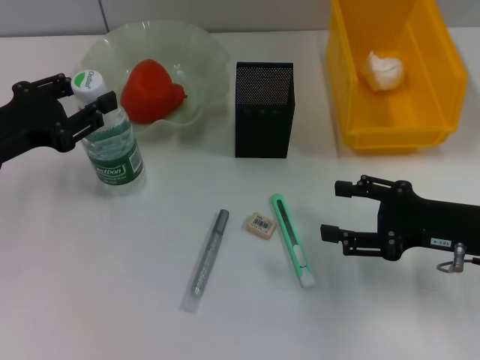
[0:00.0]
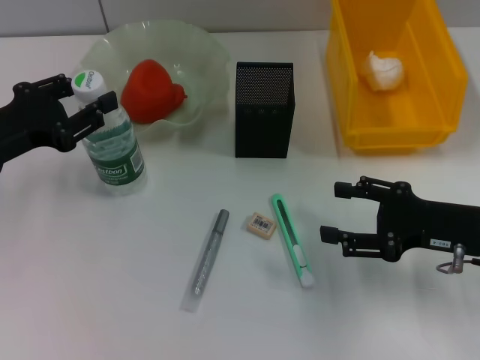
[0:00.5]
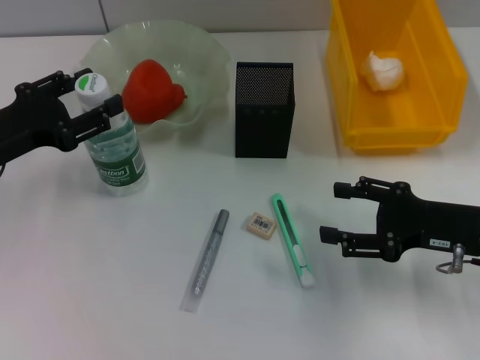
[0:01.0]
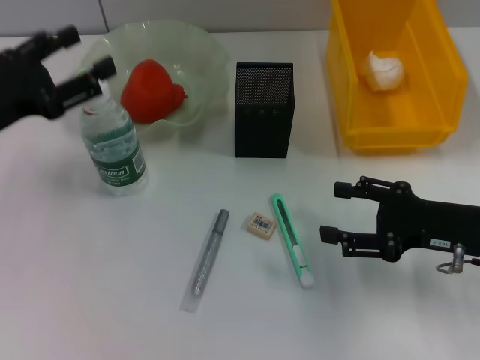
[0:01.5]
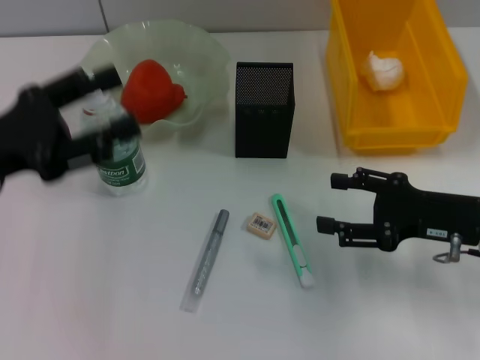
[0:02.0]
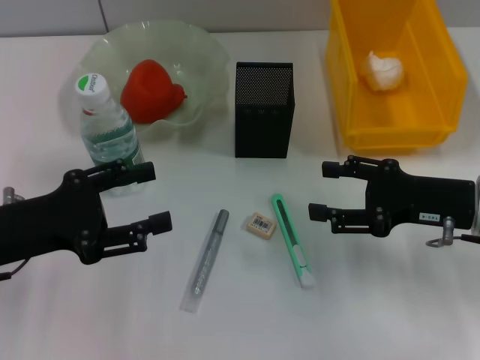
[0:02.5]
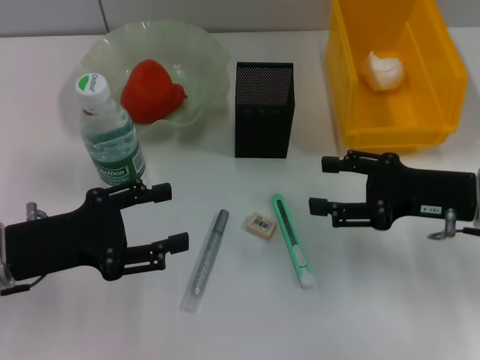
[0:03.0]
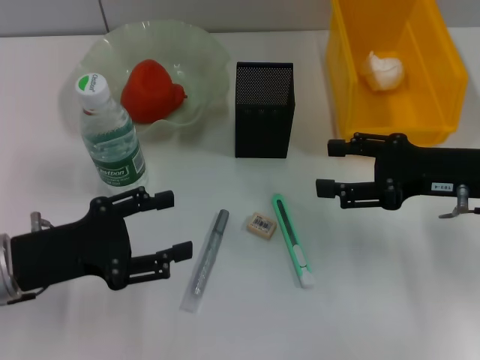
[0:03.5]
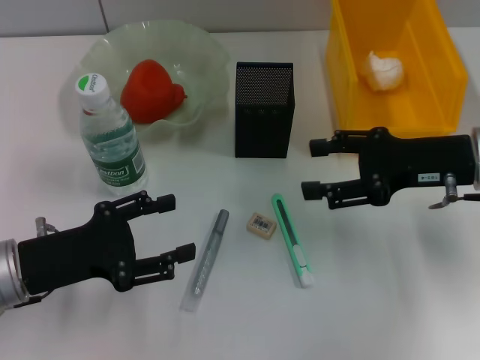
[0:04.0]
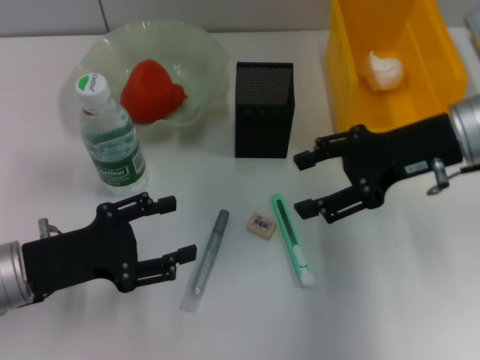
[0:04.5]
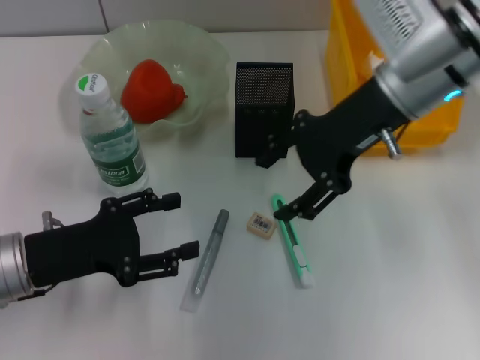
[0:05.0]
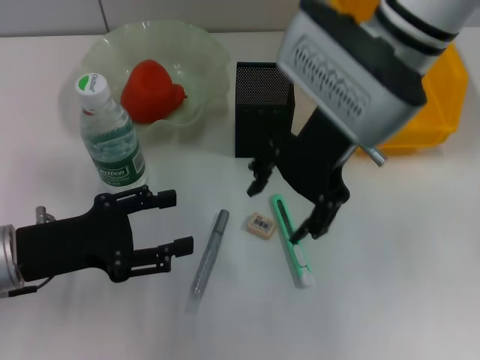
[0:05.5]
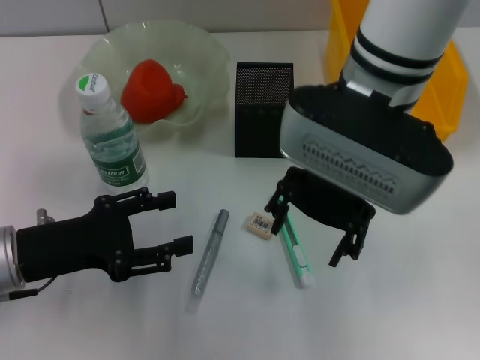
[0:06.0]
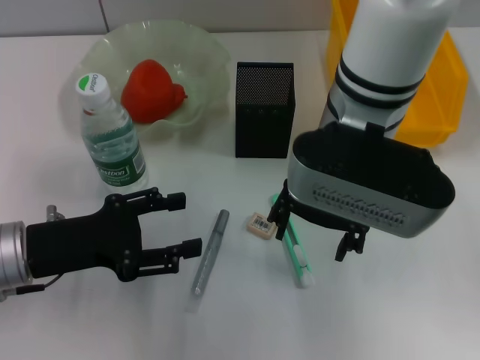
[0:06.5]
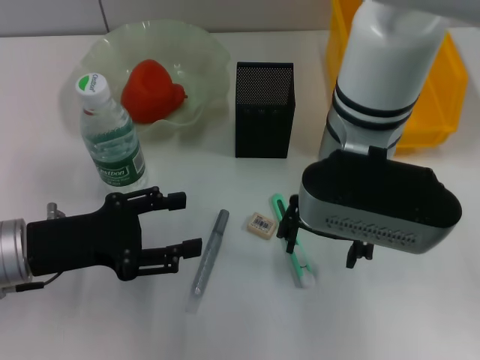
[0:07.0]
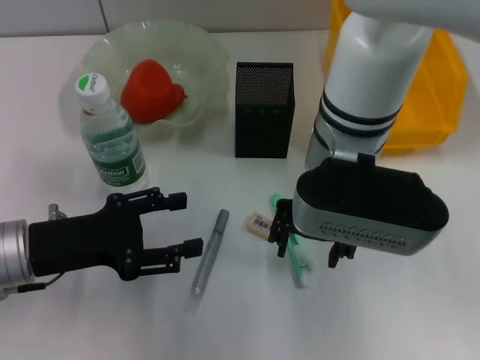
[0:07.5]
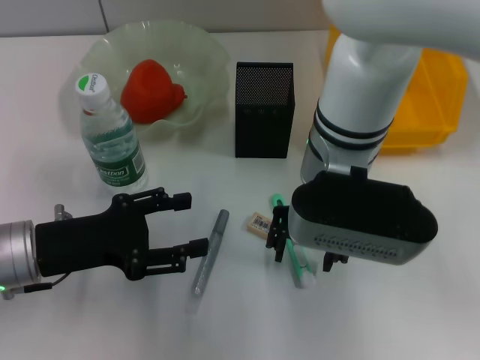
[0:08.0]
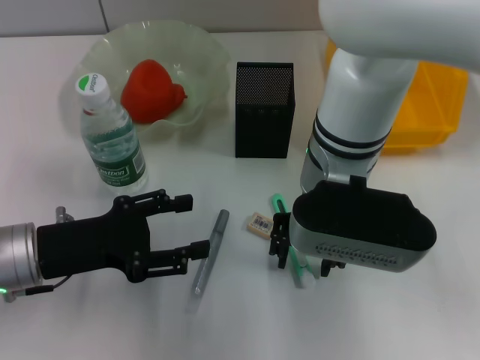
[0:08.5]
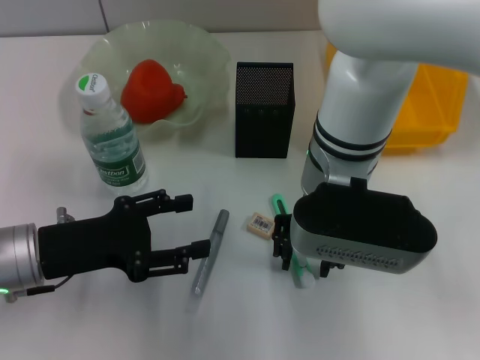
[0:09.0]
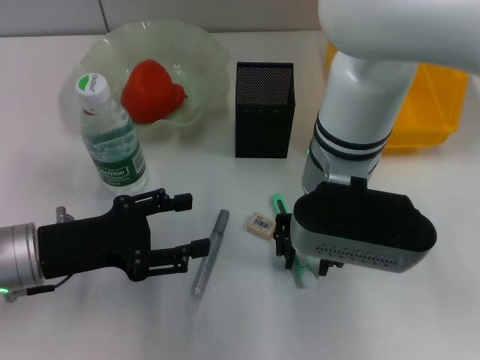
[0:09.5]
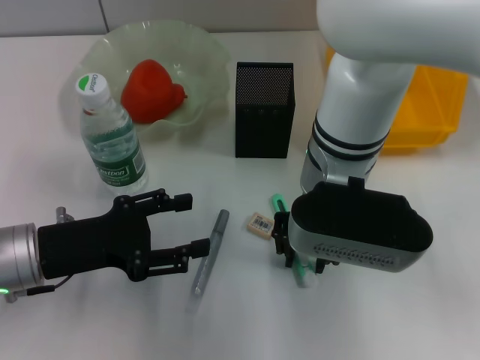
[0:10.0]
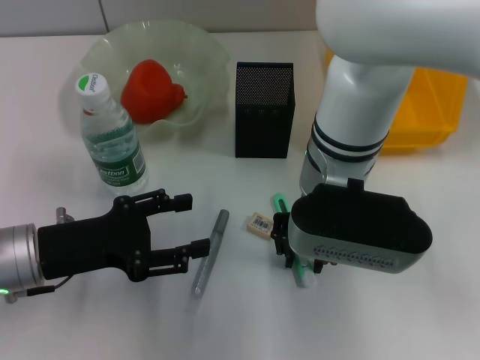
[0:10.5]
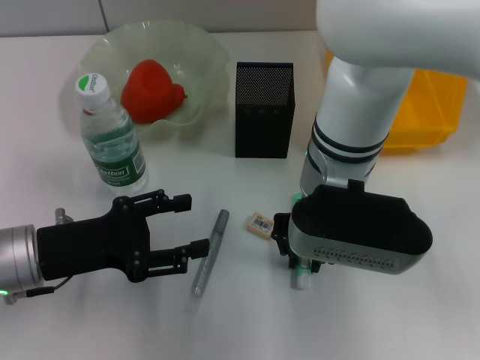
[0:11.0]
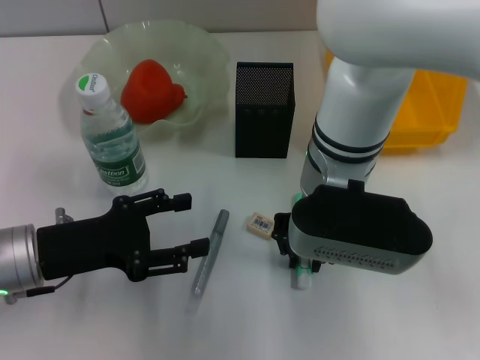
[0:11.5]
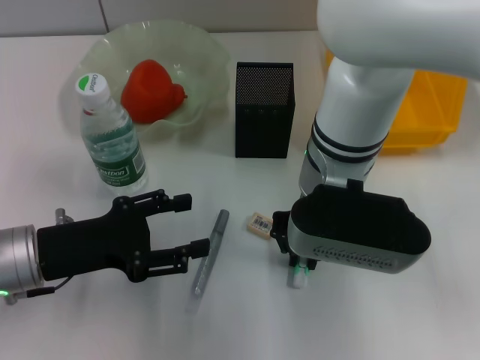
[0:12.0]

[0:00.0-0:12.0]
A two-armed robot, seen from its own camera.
0.0 to 2.0 s: The left gripper opens up.
2.0 to 4.0 s: The right gripper moves upward, roughly 5 cm, while the left gripper travels downward by about 10 cm.
4.0 to 6.0 s: The right gripper heads to the left and upward, covering roughly 20 cm.
6.0 to 8.0 s: The right gripper moves downward, about 5 cm.
8.0 to 10.0 s: Both grippers stay put.
10.0 to 12.0 s: Neither gripper changes place.

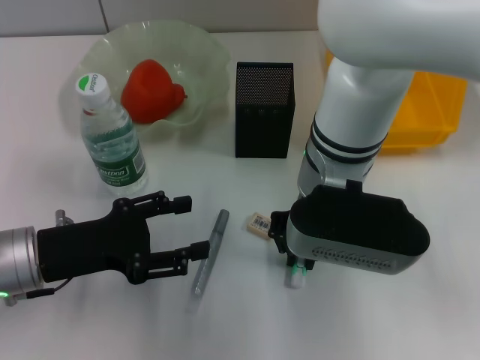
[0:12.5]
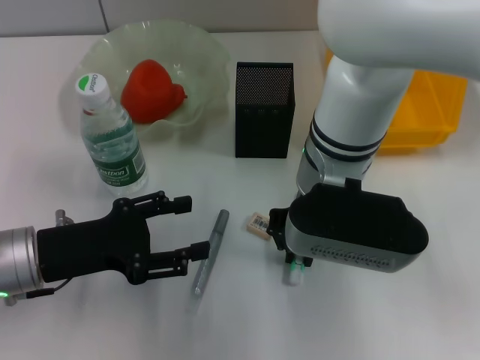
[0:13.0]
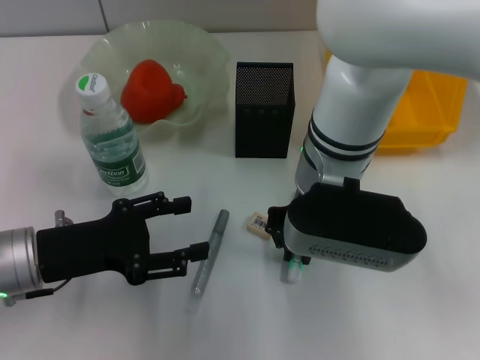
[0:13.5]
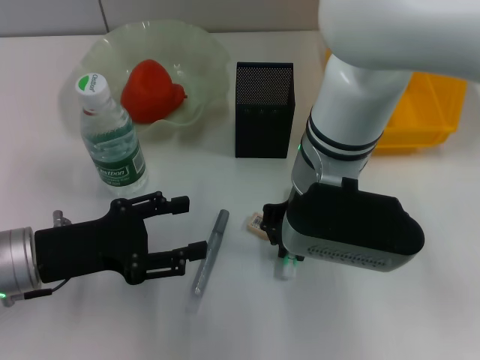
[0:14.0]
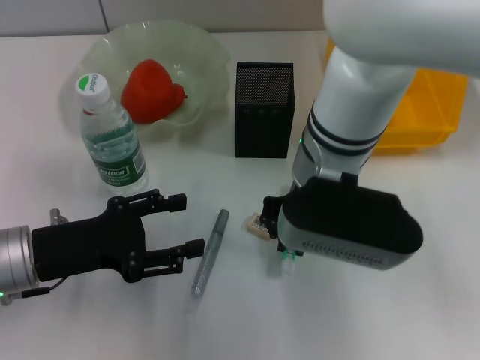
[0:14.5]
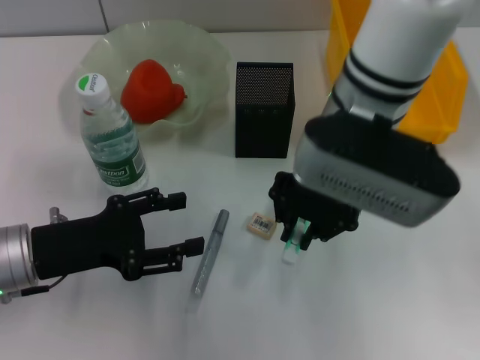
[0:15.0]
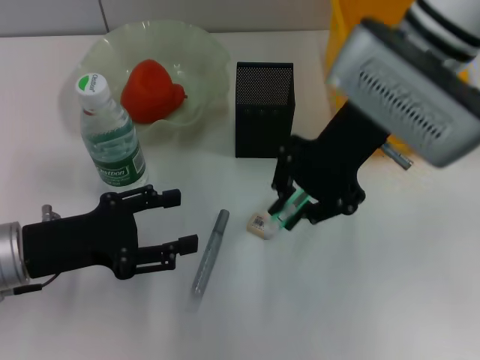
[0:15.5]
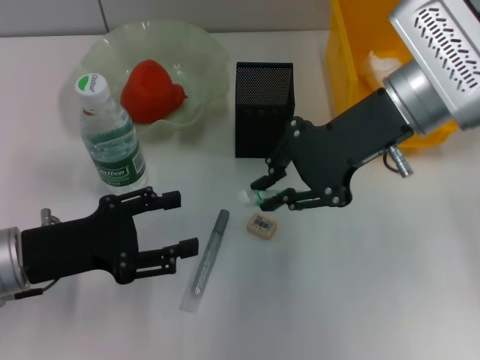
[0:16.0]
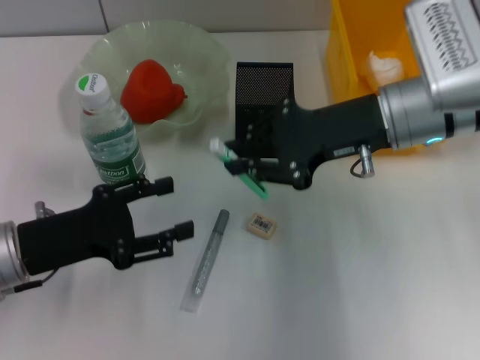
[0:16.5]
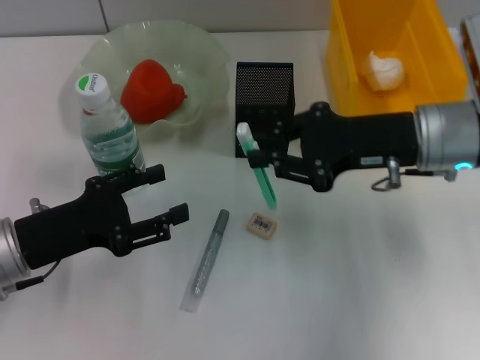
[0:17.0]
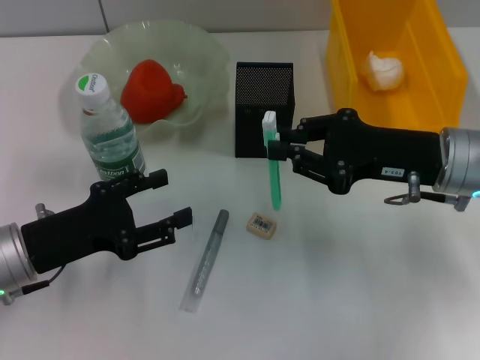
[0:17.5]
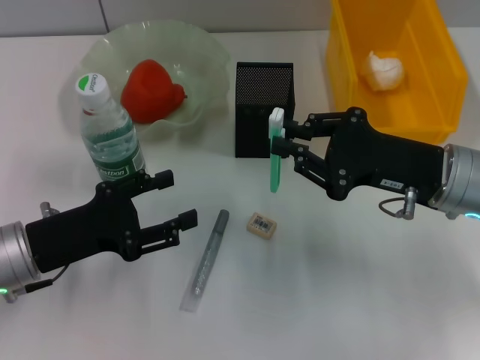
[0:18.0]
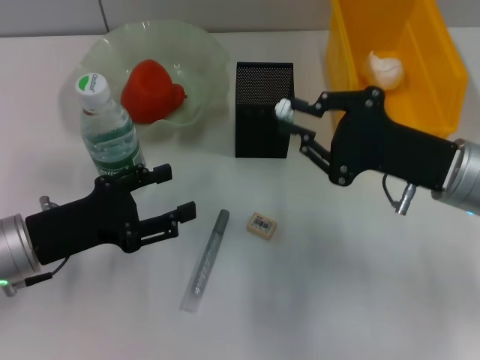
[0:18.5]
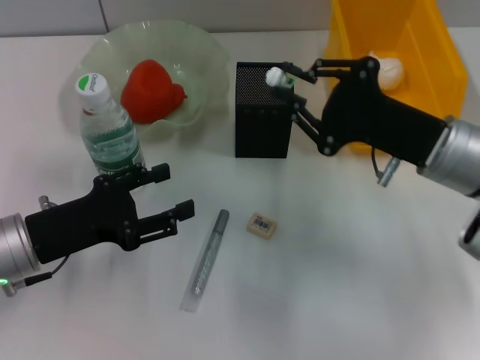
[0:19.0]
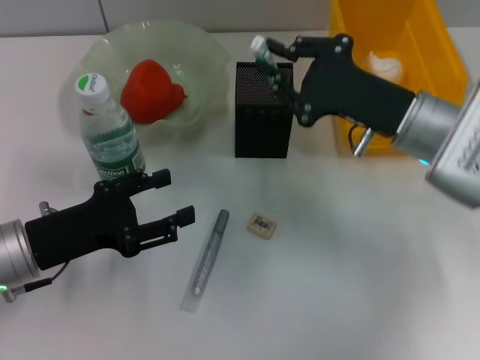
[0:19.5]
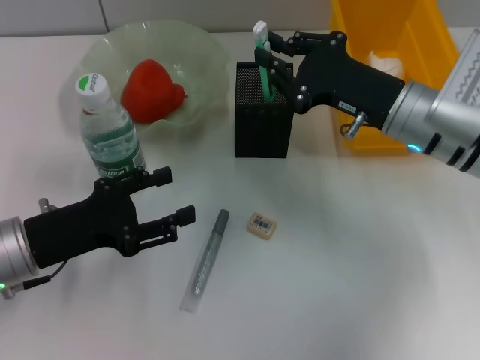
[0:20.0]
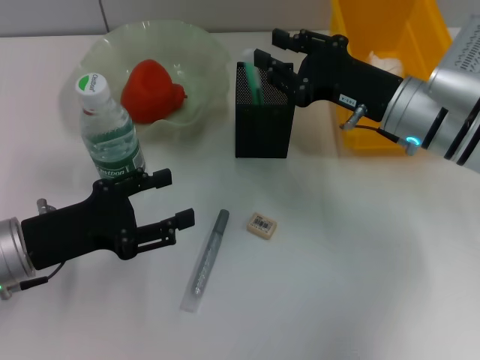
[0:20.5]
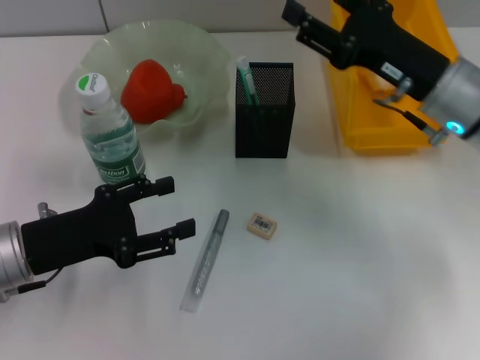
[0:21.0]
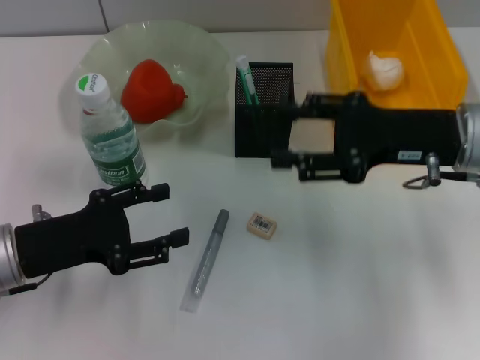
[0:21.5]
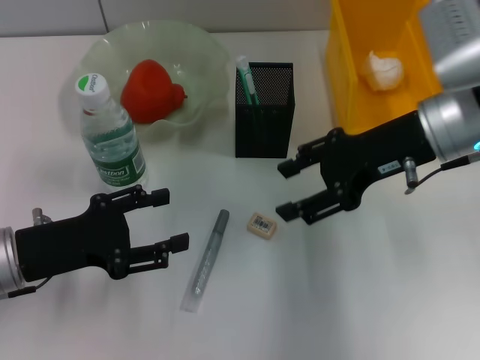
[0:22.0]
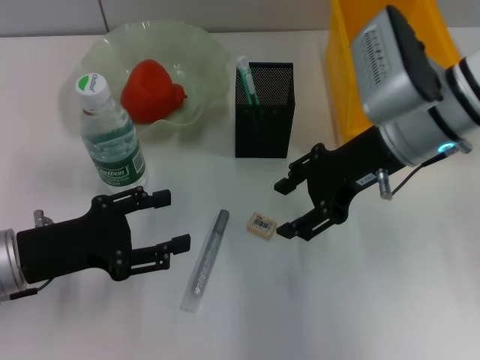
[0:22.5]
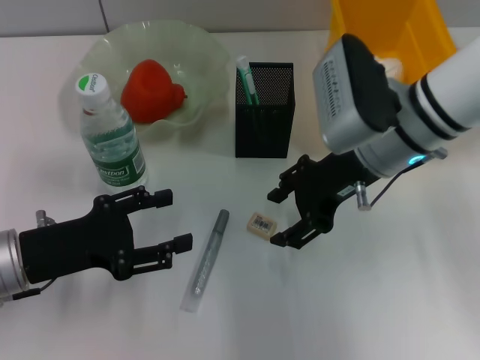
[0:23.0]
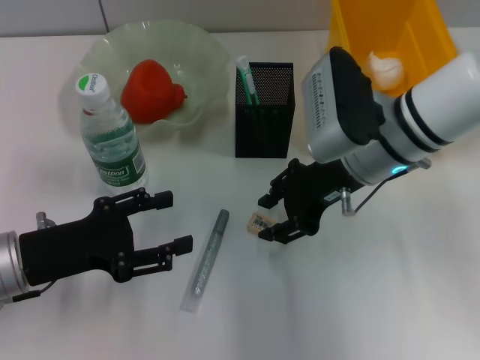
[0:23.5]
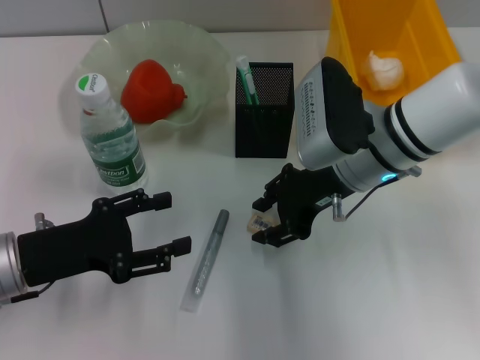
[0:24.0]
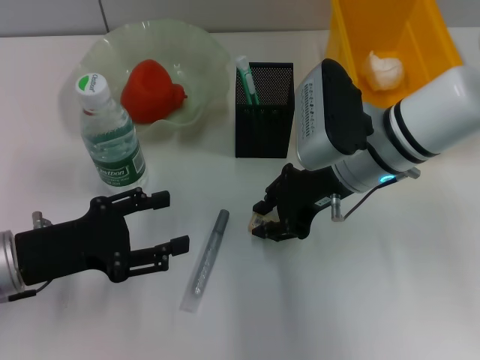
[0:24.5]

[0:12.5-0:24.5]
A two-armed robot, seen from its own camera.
Step, 12.5 to 20.5 s: Place the blue utility knife into the pen holder with the right hand.
12.5 to 14.5 s: Both grippers stay about where they are.
14.5 to 16.5 s: The right gripper shifts some 10 cm to the right.
16.5 to 18.5 s: The right gripper is displaced backward, downward and to the right by approximately 10 cm.
18.5 to 20.5 s: The right gripper travels forward by roughly 5 cm.
20.5 to 22.5 s: The right gripper shifts roughly 5 cm upward, and opens its fingers.
22.5 to 24.5 s: The right gripper changes place by about 5 cm, and closes its fingers.

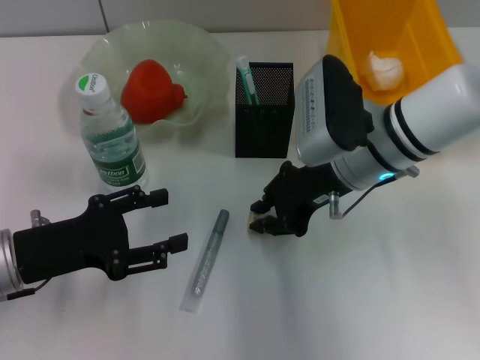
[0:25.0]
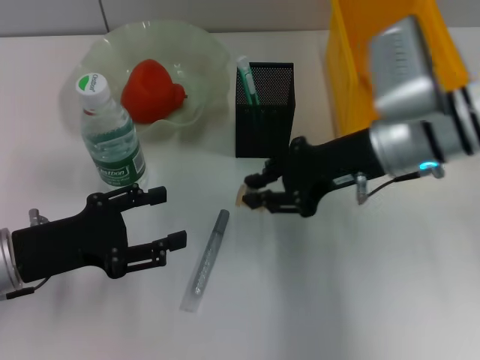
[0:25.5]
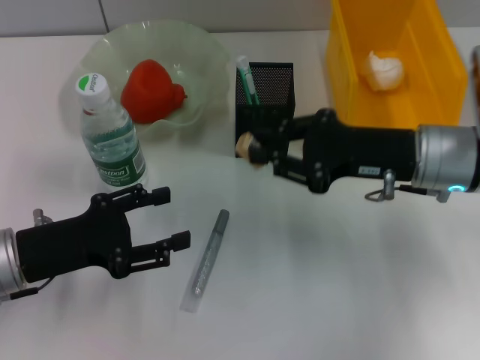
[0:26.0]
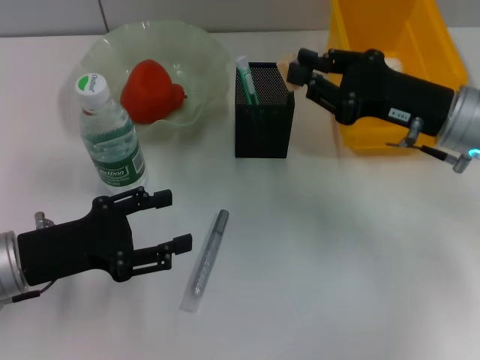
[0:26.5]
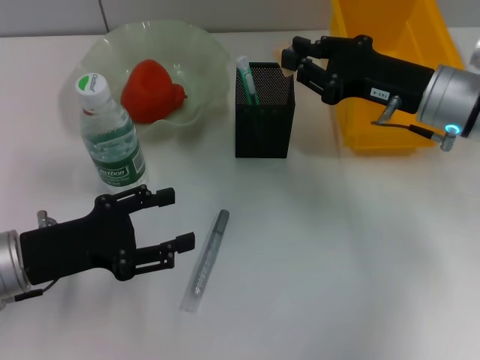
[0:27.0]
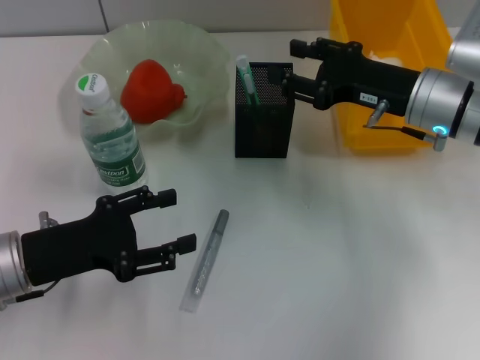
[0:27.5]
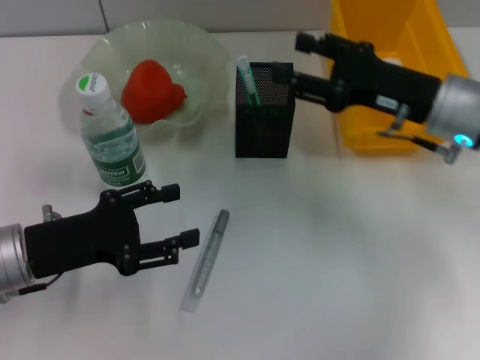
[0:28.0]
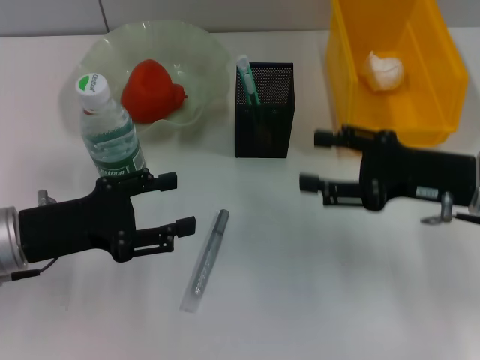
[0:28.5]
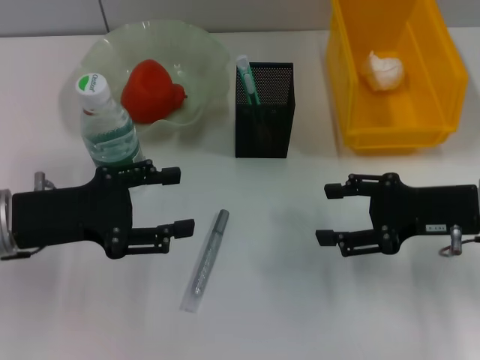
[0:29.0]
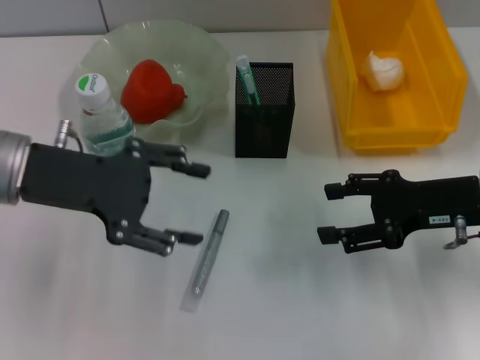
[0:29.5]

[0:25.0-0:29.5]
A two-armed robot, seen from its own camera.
Step, 25.0 to 27.0 s: Put the eraser into the pen holder with the right hand.
25.0 to 27.0 s: The right gripper heads to the right, covering some 10 cm.
27.0 to 29.5 s: The left gripper is displaced upward and forward by some 10 cm, while the right gripper moves backward, some 5 cm, and opens.
